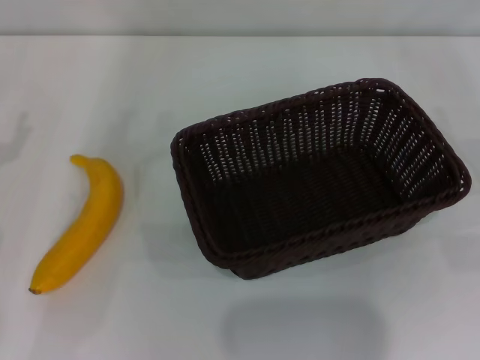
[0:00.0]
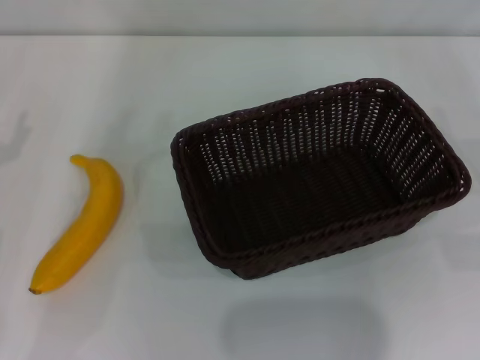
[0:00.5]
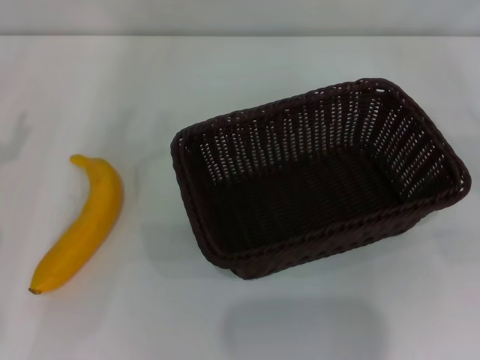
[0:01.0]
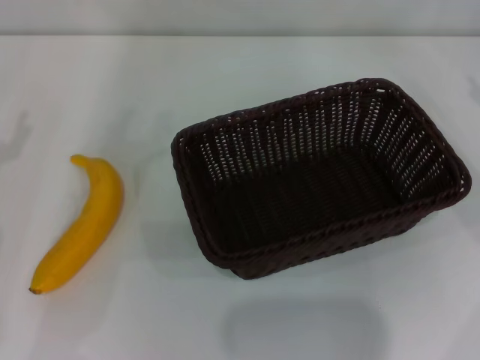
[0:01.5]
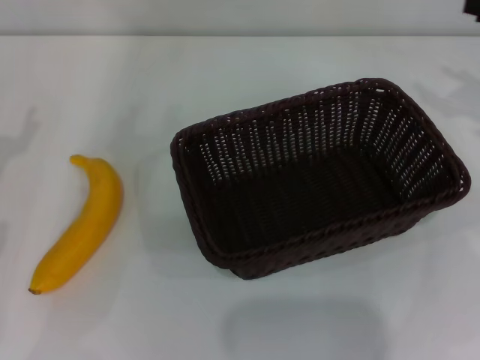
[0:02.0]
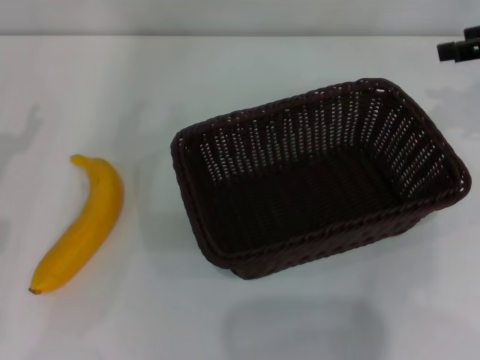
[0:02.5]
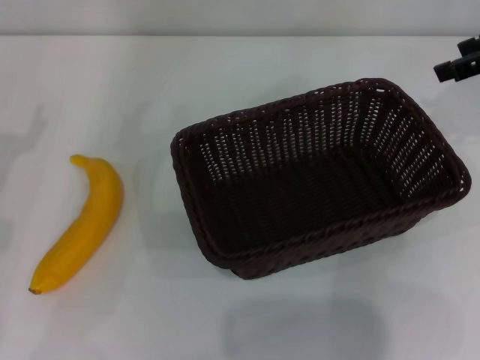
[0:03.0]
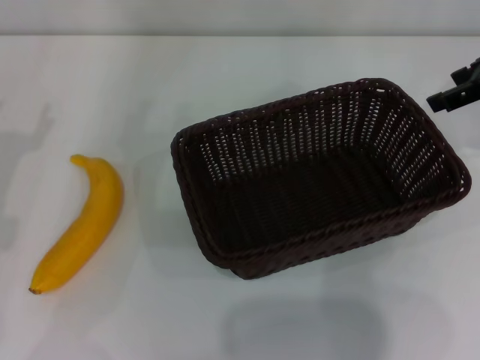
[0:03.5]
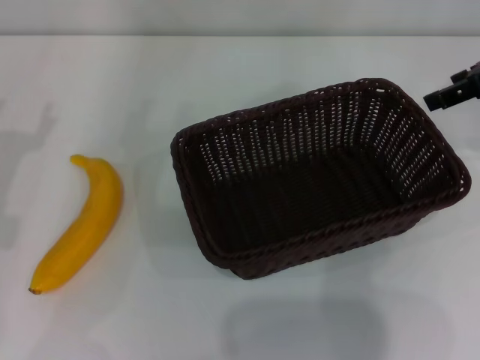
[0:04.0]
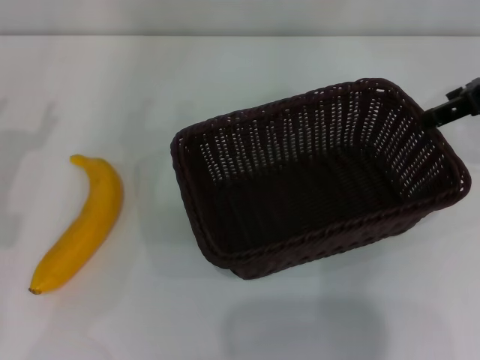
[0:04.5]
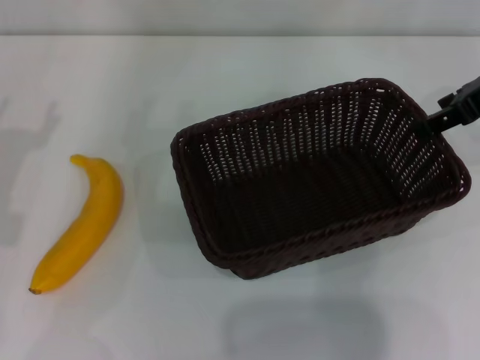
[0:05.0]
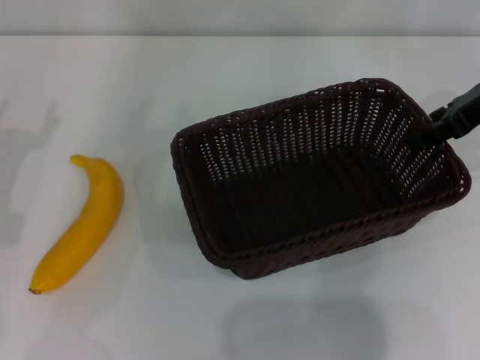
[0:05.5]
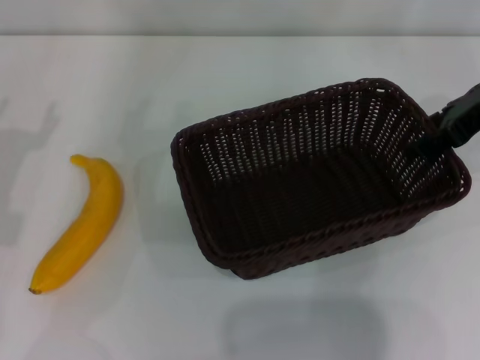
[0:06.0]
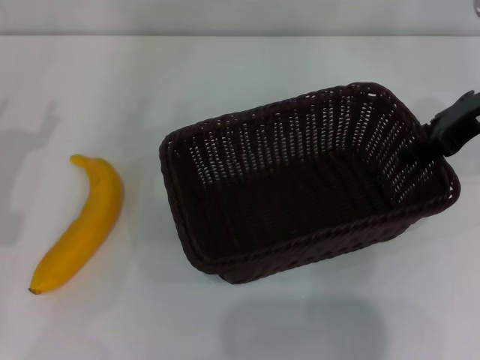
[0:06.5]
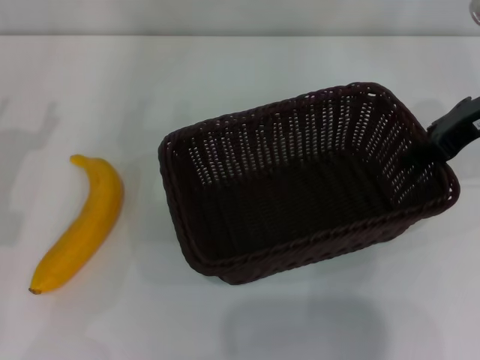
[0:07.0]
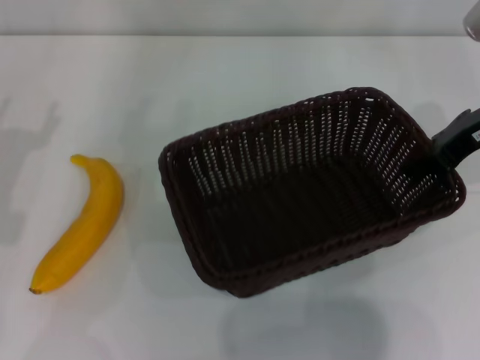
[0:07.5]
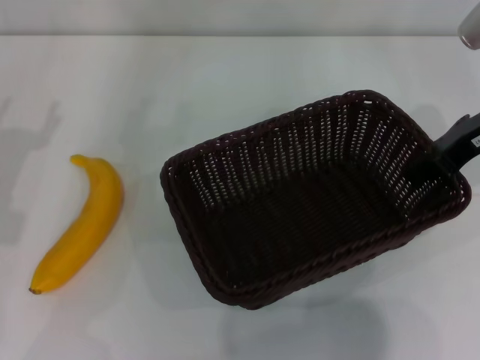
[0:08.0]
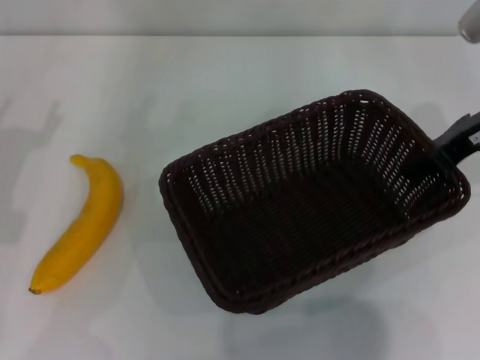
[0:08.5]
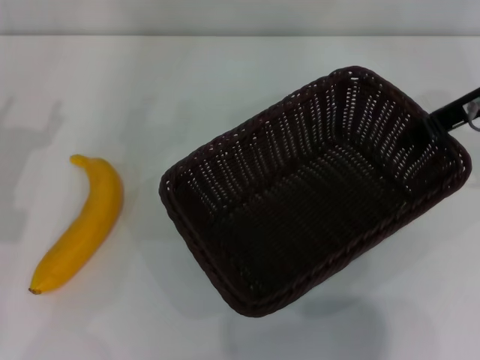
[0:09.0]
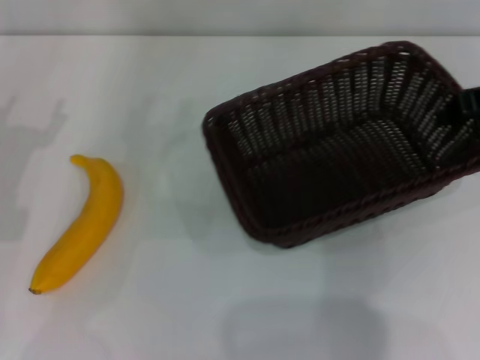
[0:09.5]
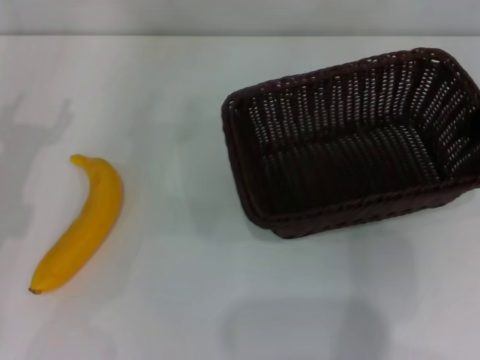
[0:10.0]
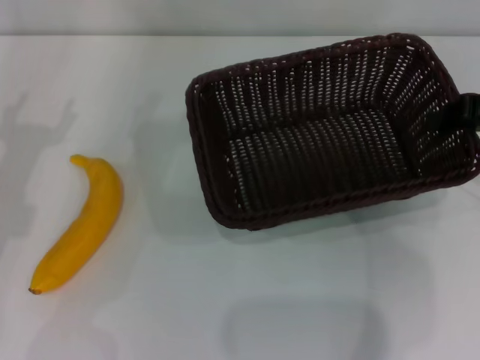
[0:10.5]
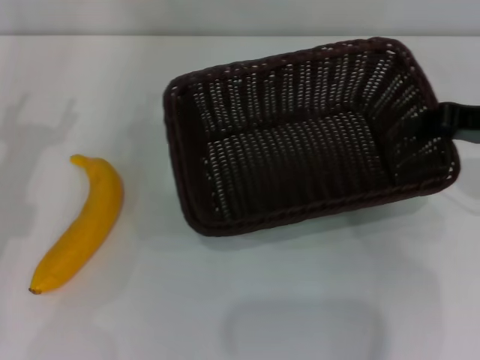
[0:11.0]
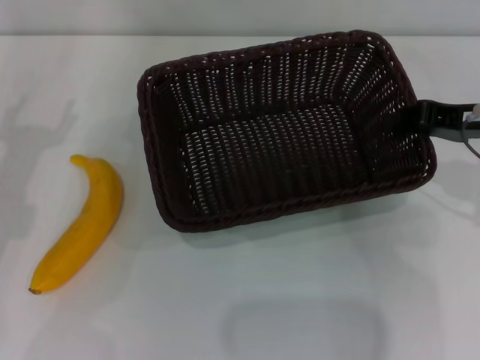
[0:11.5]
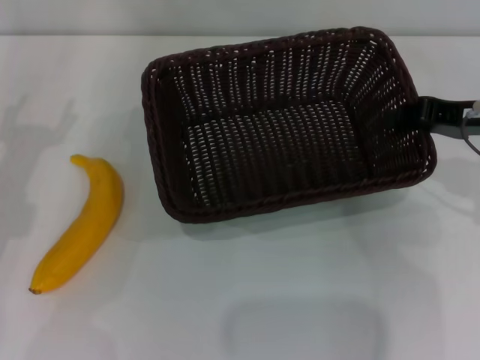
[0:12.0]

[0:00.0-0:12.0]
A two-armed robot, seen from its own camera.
Step, 0:00.0 to 0:08.5: Pick up the dark basket with the right gripper.
0:02.0 to 0:04.0: The right gripper heads to the left, covering roughly 5 cm.
0:04.0 to 0:06.0: The grippers stay close to where they were, moving slightly.
0:06.0 to 0:08.0: The right gripper closes up.
0:08.0 to 0:10.0: The right gripper shifts some 5 cm to the right.
0:10.0 to 0:12.0: The right gripper ends up some 5 cm from where it was.

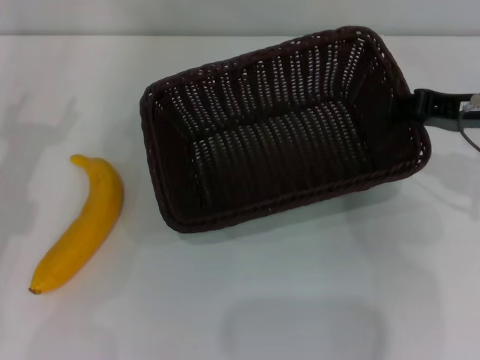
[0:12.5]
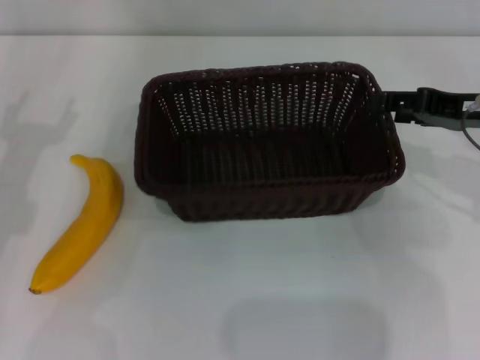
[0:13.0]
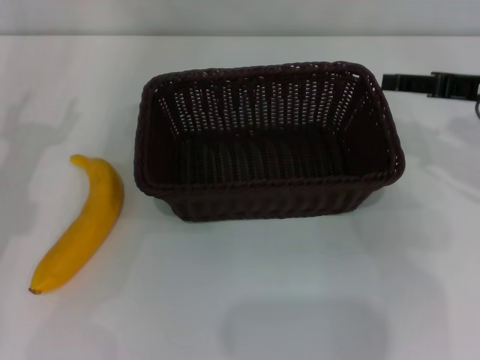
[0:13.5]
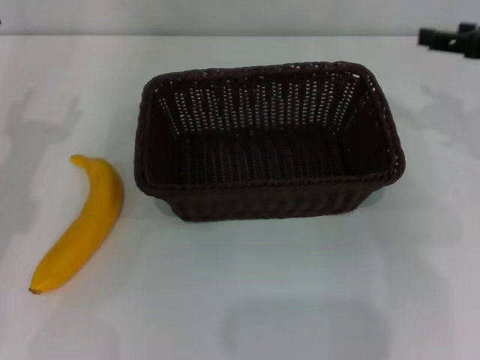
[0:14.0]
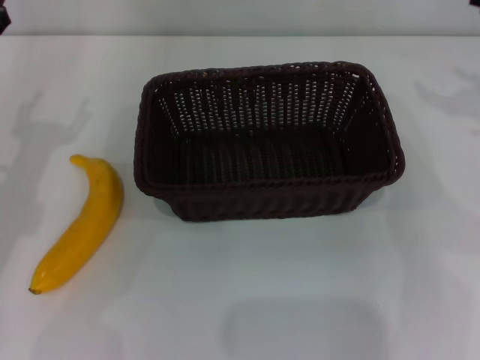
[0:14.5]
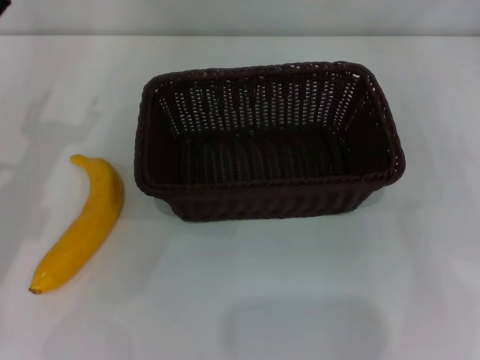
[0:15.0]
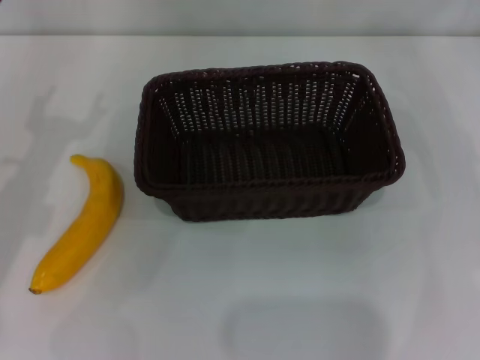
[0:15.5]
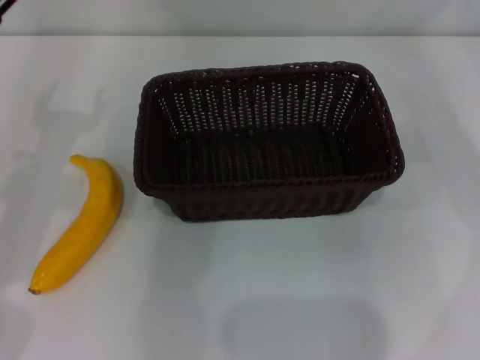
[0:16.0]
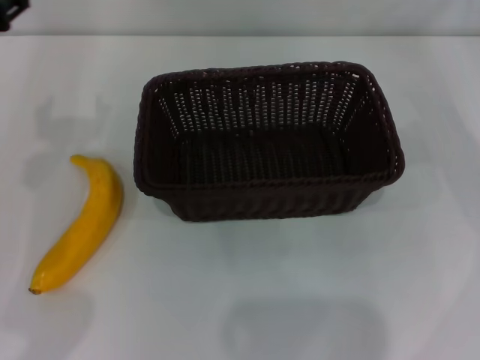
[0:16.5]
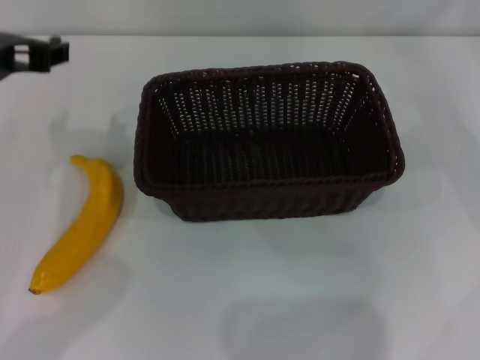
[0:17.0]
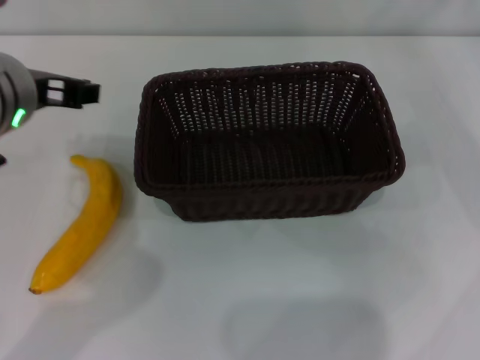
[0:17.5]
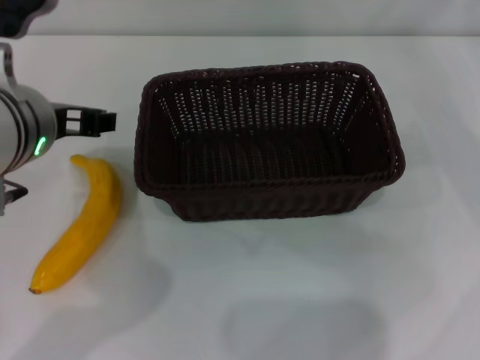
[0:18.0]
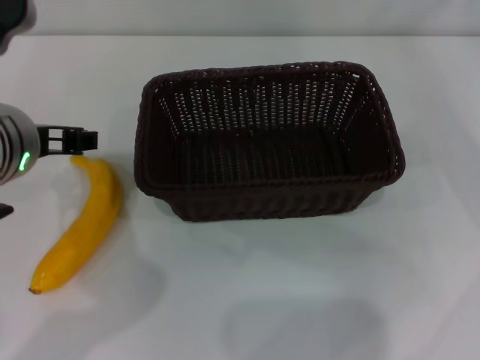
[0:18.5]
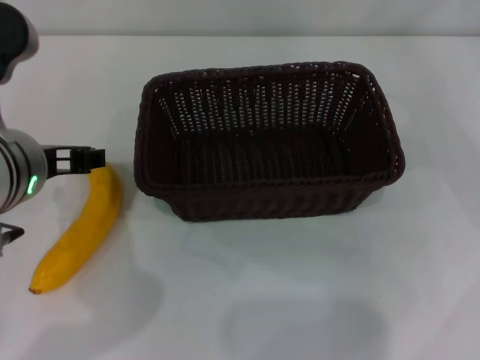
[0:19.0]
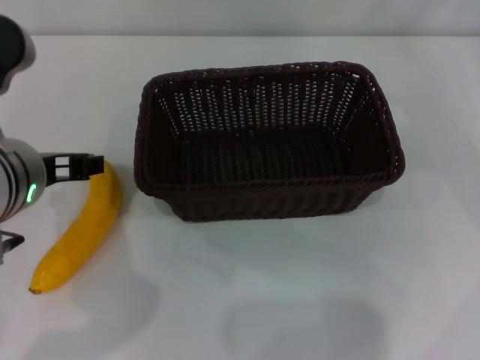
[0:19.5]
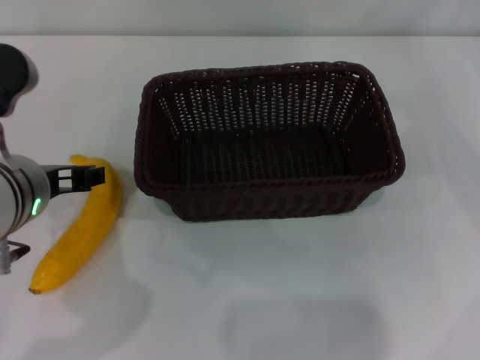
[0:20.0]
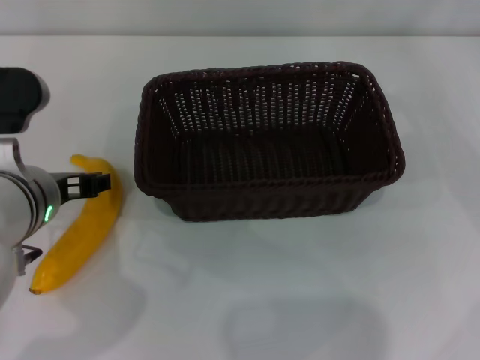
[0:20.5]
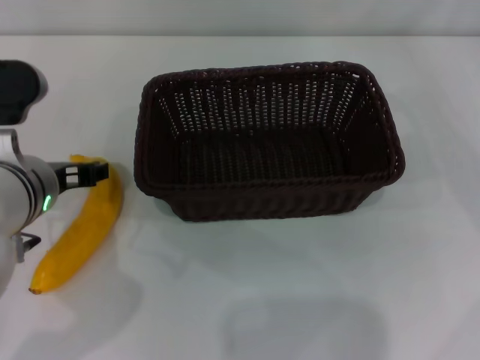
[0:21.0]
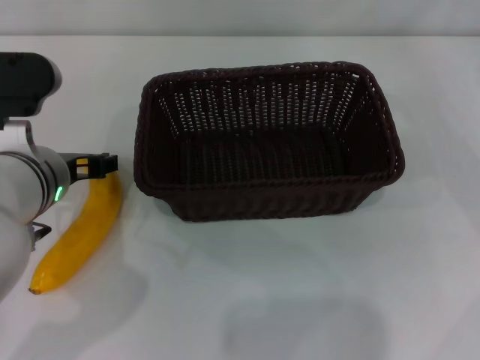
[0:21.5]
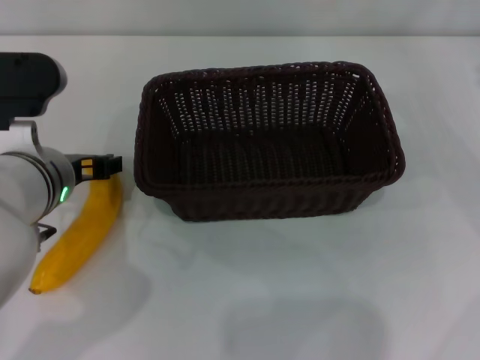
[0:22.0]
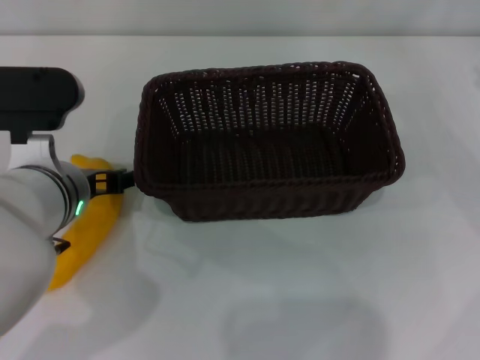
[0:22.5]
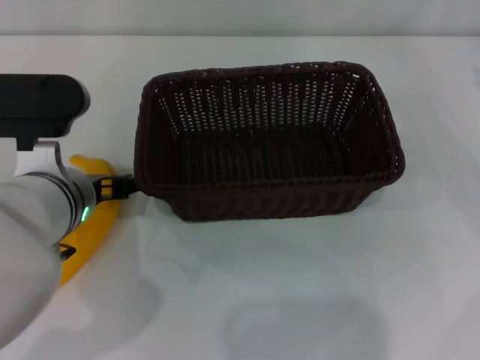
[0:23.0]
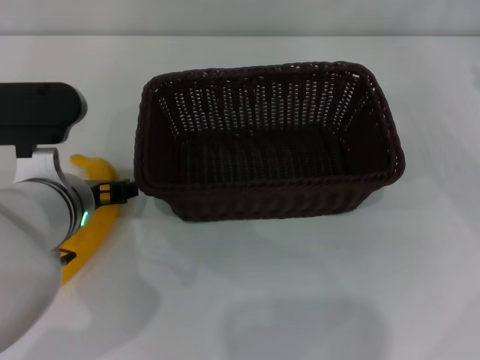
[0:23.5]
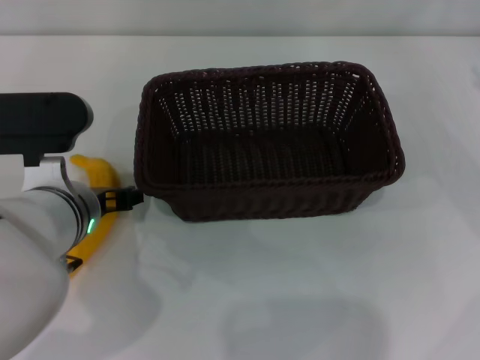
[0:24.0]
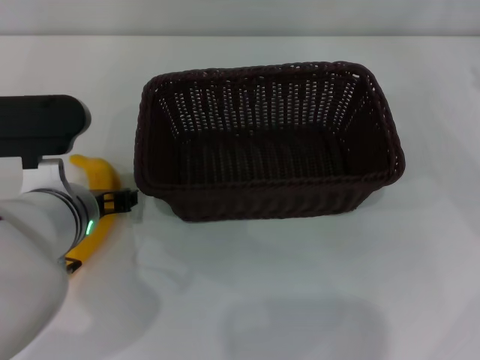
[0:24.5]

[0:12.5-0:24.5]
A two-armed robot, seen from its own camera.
0:12.5 to 0:14.5: The right gripper goes about 10 cm to the right, and opens up.
0:16.5 to 0:18.5: The left gripper is displaced to the right by some 5 cm.
0:18.5 to 0:20.5: The left gripper is displaced downward by about 10 cm.
0:20.5 to 0:24.5: There are only small adjustments of the grippers.

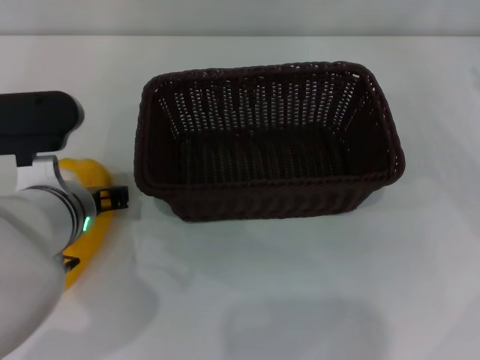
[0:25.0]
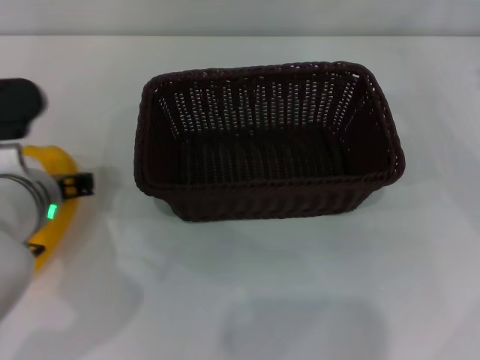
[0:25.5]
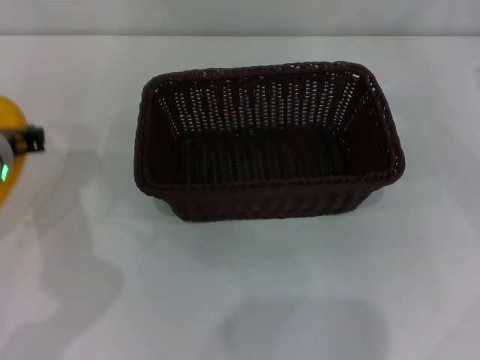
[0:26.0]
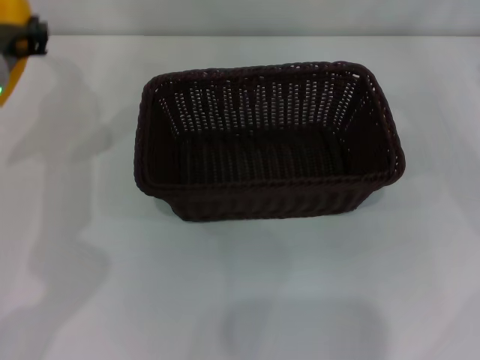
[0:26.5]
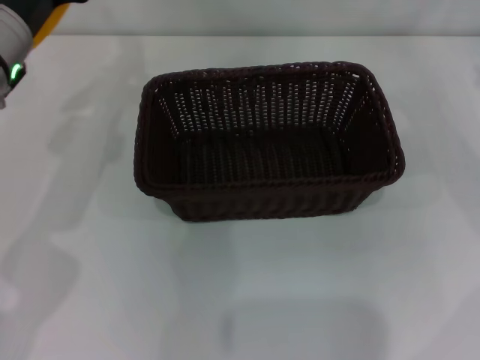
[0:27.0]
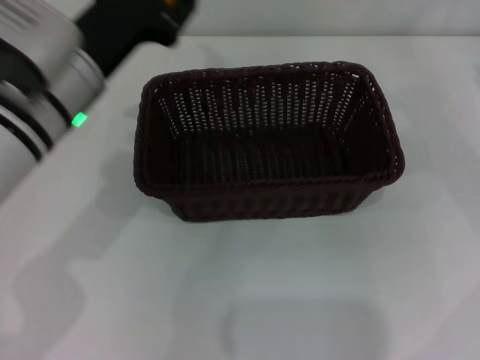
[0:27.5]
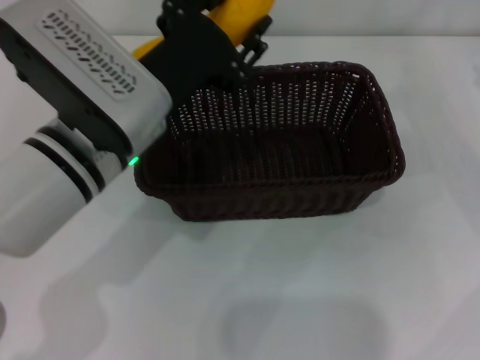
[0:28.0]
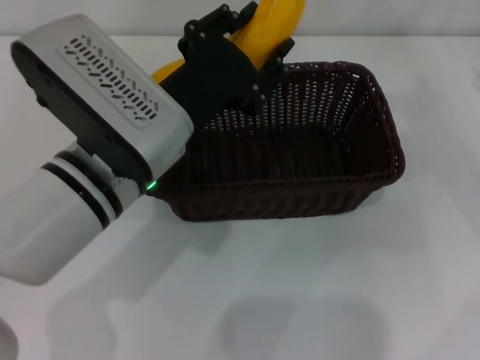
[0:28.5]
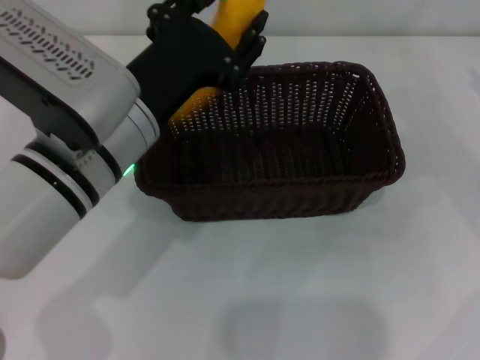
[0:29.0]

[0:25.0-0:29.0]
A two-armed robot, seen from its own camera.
0:25.0 to 0:27.0: The left gripper heads forward, upward and to the left, covering approximately 10 cm.
0:27.0 to 0:29.0: The left gripper travels to the right and backward by approximately 10 cm.
